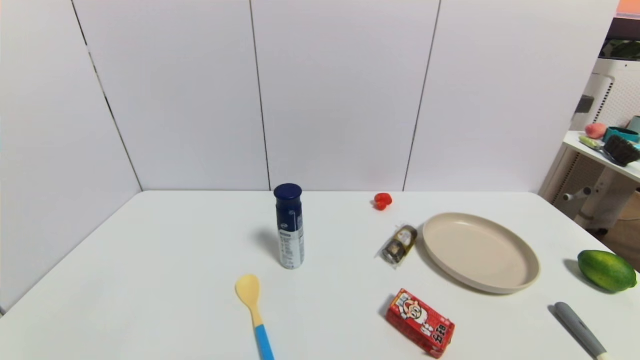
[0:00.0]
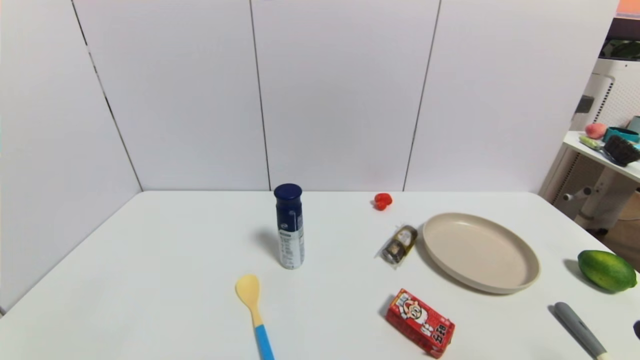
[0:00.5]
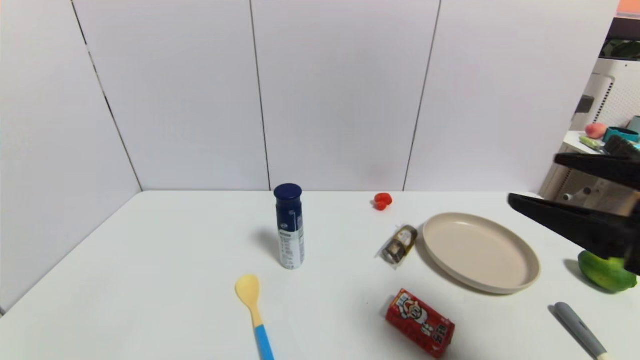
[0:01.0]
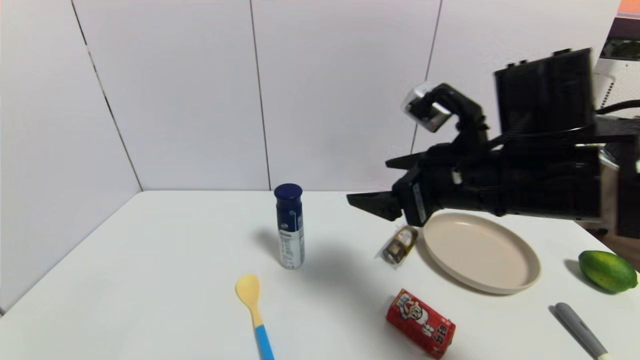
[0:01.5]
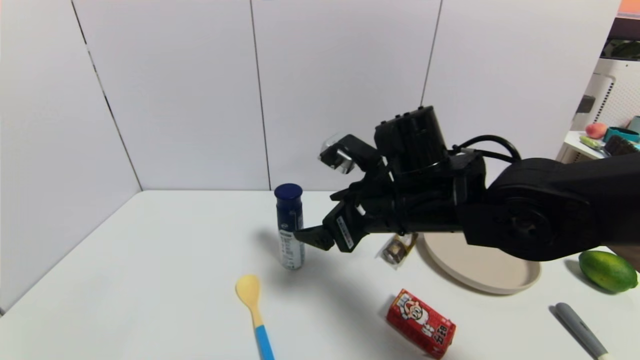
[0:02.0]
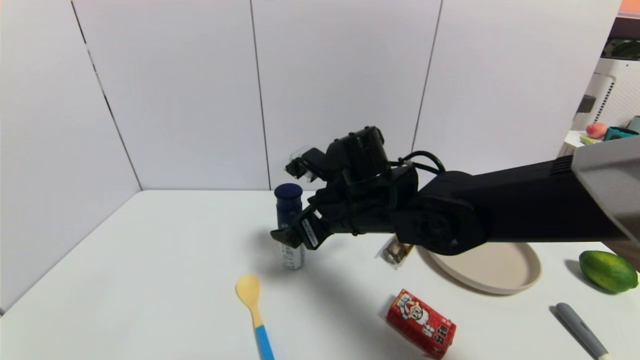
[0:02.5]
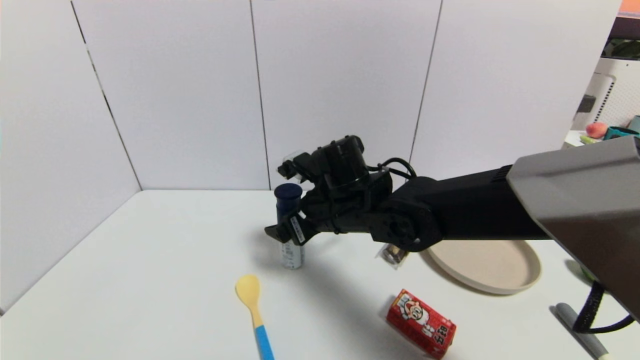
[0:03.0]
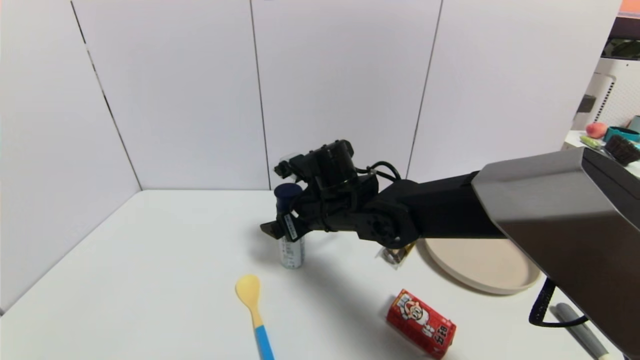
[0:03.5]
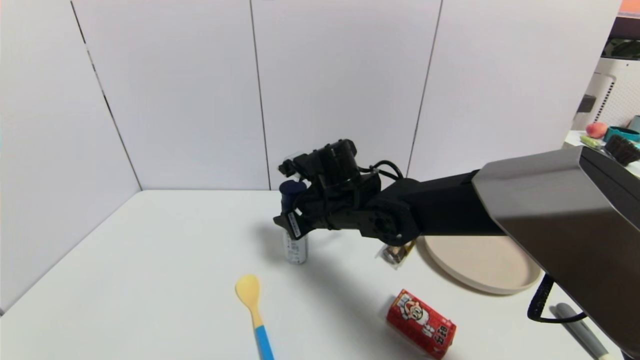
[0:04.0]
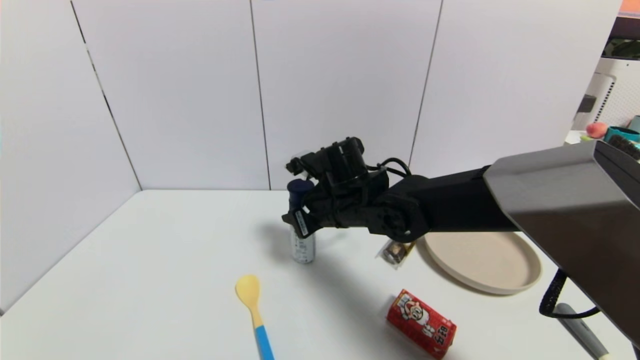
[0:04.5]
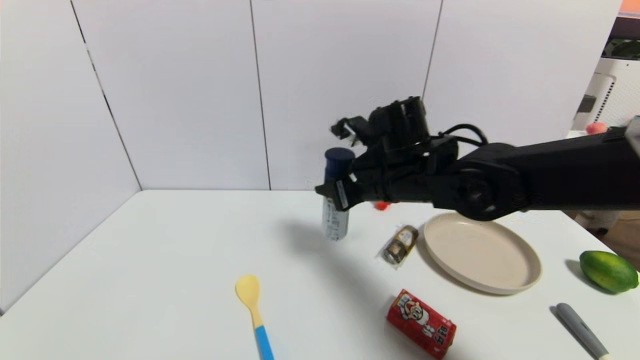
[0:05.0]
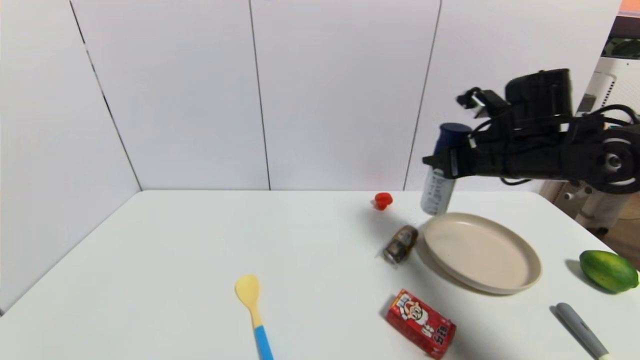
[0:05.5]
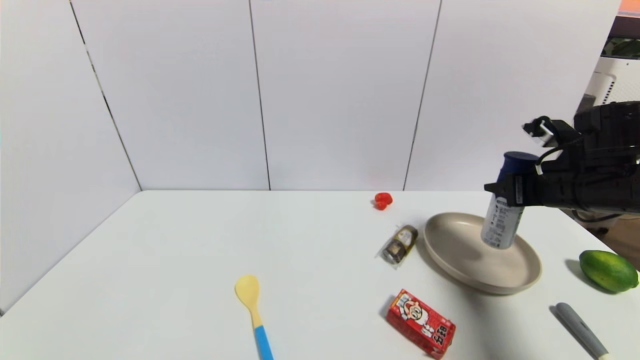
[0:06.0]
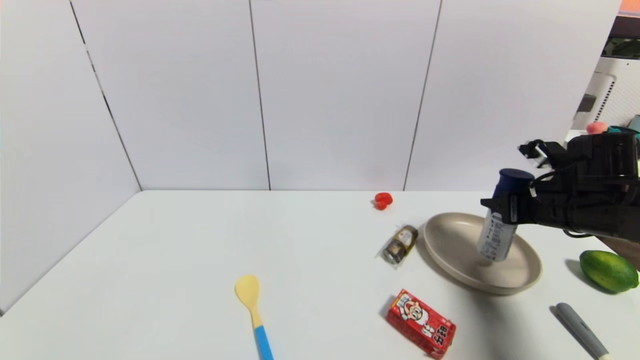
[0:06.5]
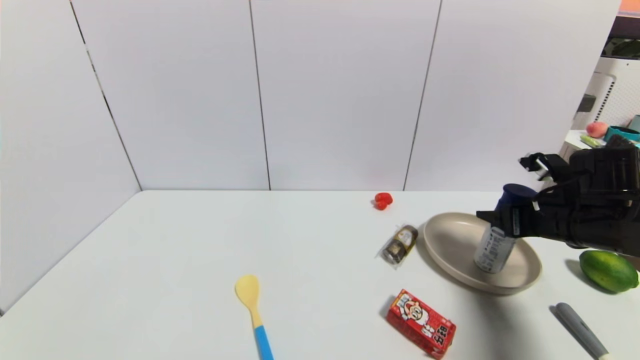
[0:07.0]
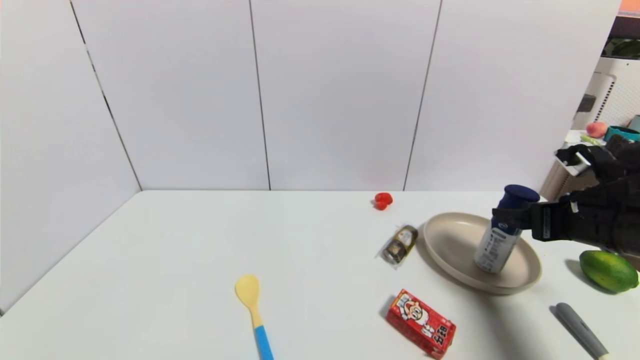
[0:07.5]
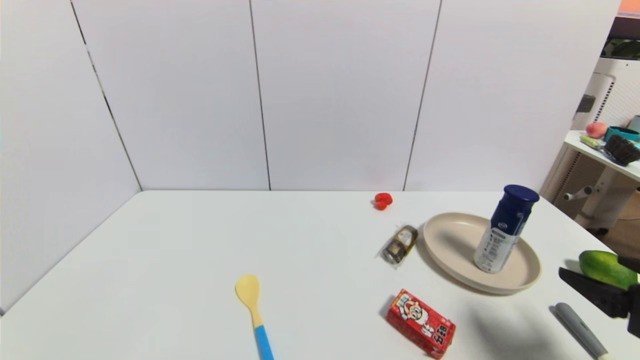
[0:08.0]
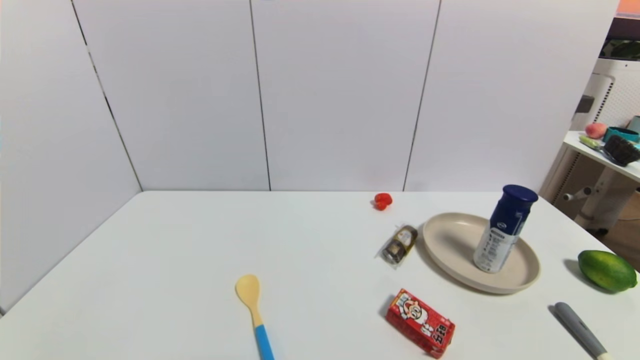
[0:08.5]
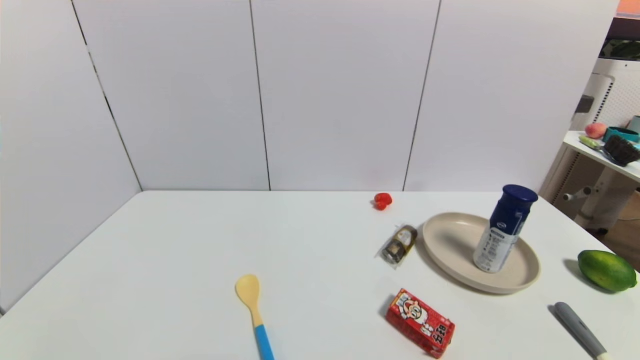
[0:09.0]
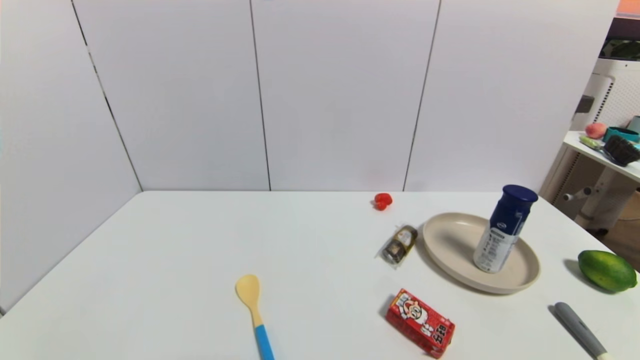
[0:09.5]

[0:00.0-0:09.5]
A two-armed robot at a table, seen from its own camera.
Task of the whole recording: use a gripper to pick the target object and place on the brown plate.
Step, 0:00.0 to 0:04.0: Grasp the yogurt with the right gripper.
Step, 0:04.5 to 0:07.5: Place the yogurt on the brown plate with the right gripper.
0:00.0 to 0:02.0: The right gripper heads forward, to the left and upward, covering about 40 cm.
0:02.0 to 0:04.0: The right gripper goes approximately 10 cm forward, to the left and downward, and closes its fingers.
0:04.0 to 0:05.5: The right gripper is displaced to the right by some 25 cm.
0:05.5 to 0:07.5: The right gripper travels backward and to the right by about 10 cm, and opens.
0:07.5 to 0:09.5: The right gripper heads backward and downward, covering approximately 30 cm.
